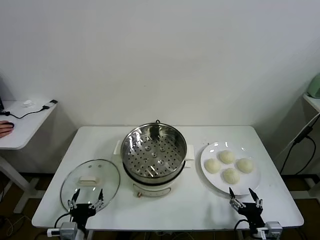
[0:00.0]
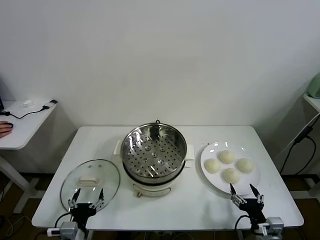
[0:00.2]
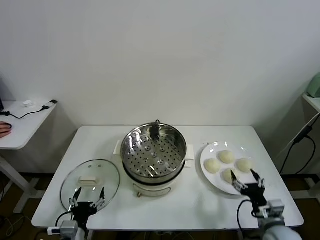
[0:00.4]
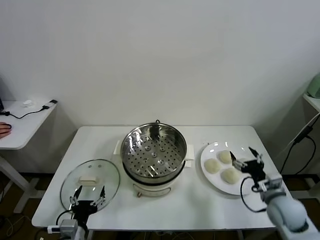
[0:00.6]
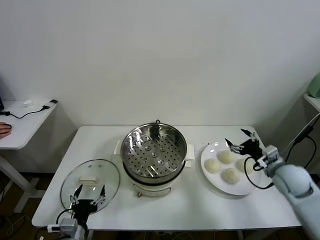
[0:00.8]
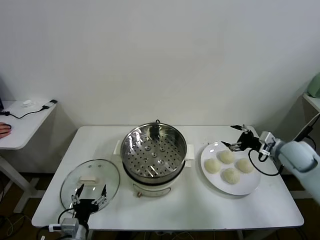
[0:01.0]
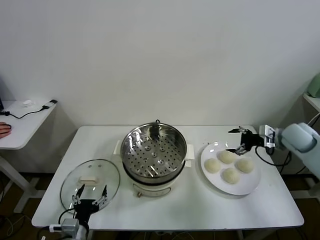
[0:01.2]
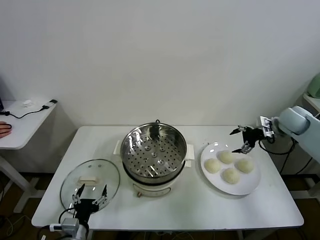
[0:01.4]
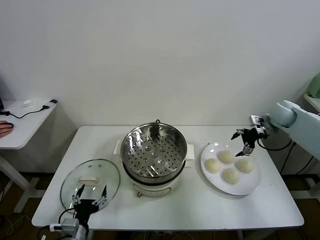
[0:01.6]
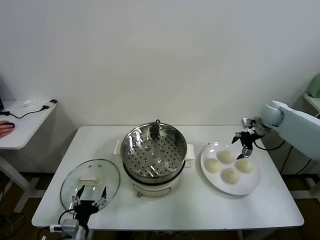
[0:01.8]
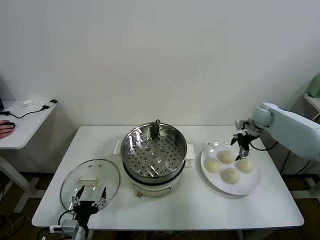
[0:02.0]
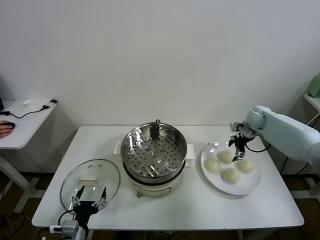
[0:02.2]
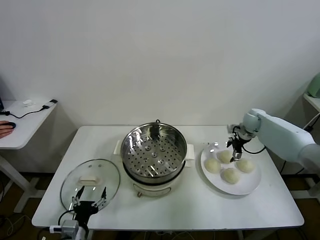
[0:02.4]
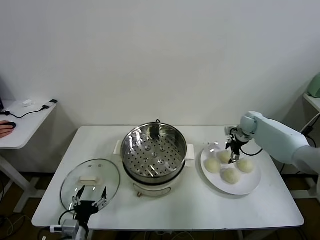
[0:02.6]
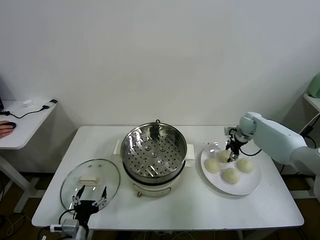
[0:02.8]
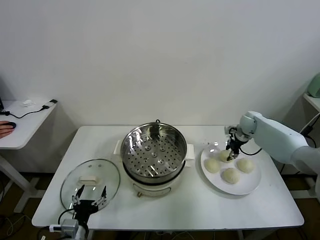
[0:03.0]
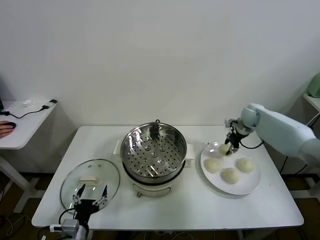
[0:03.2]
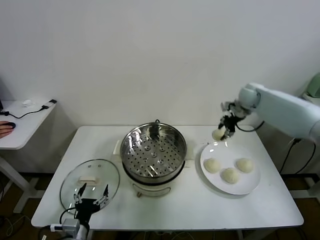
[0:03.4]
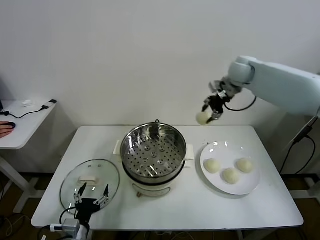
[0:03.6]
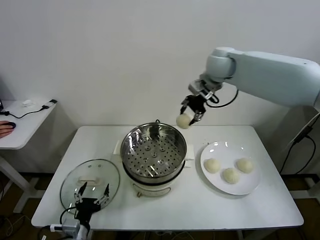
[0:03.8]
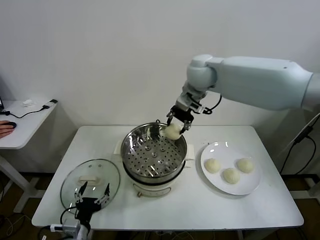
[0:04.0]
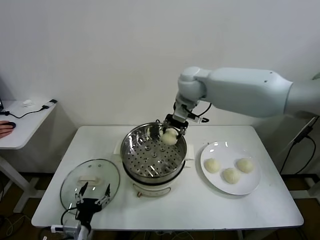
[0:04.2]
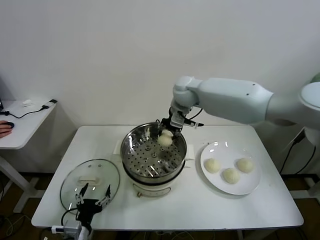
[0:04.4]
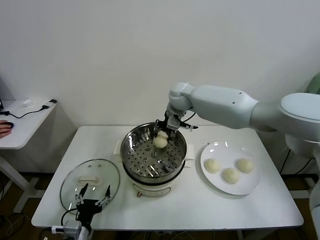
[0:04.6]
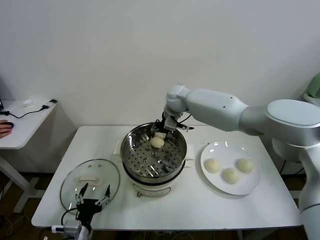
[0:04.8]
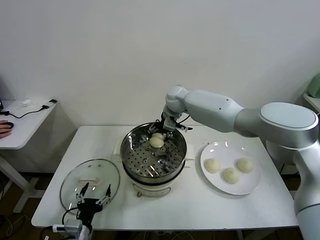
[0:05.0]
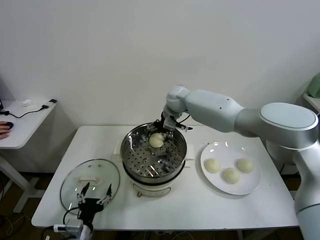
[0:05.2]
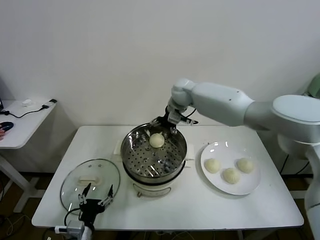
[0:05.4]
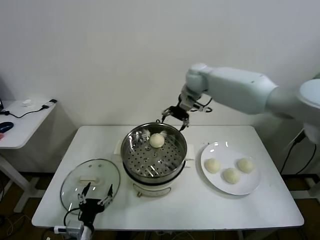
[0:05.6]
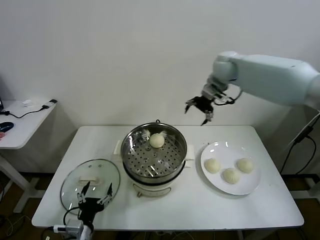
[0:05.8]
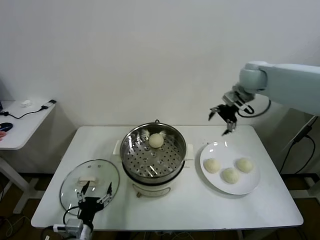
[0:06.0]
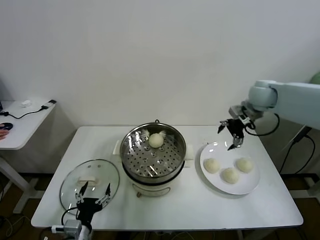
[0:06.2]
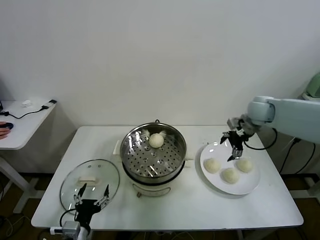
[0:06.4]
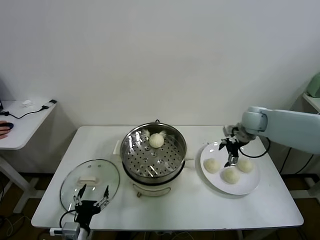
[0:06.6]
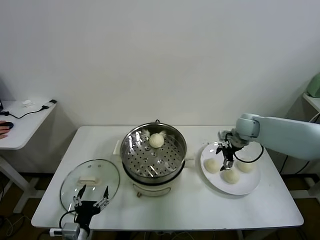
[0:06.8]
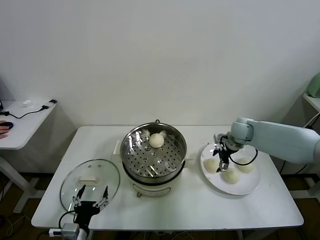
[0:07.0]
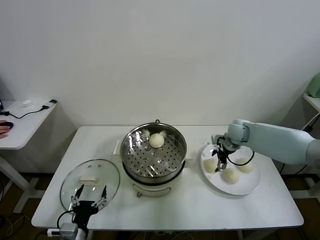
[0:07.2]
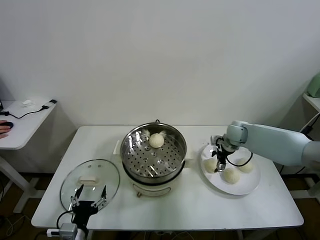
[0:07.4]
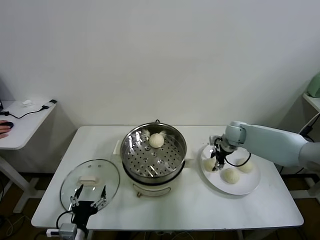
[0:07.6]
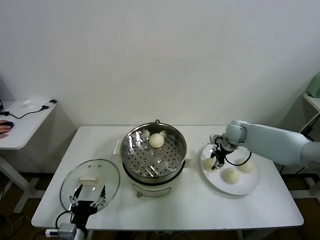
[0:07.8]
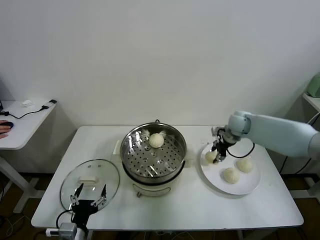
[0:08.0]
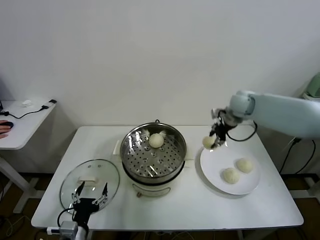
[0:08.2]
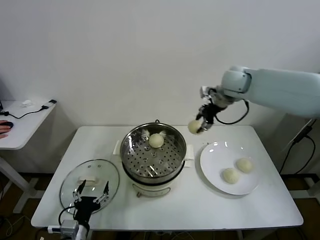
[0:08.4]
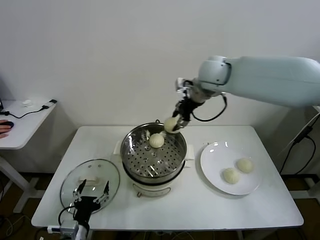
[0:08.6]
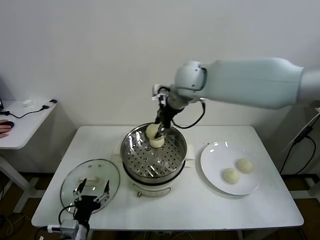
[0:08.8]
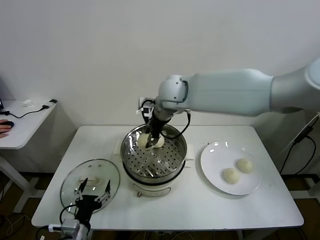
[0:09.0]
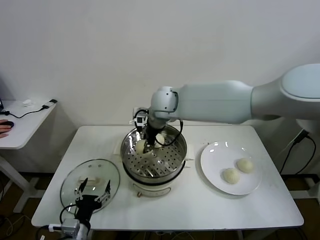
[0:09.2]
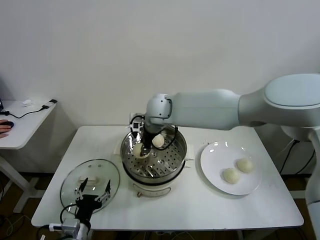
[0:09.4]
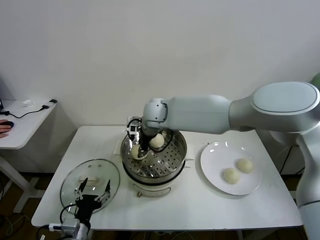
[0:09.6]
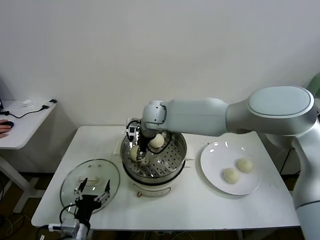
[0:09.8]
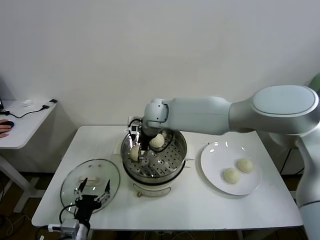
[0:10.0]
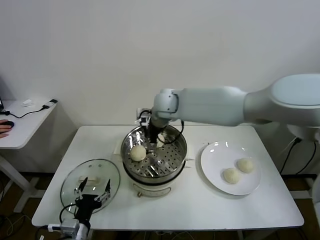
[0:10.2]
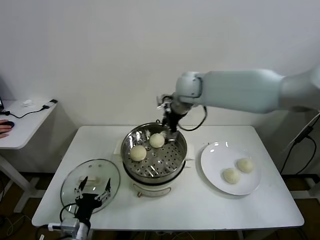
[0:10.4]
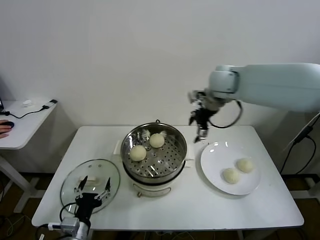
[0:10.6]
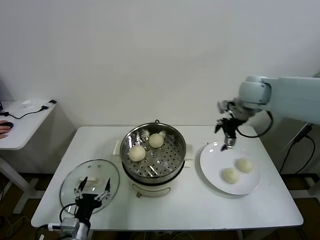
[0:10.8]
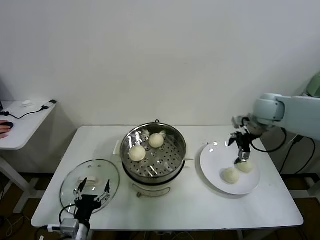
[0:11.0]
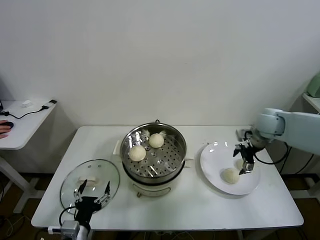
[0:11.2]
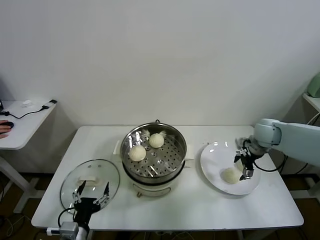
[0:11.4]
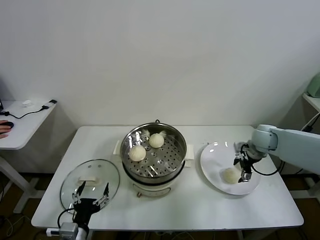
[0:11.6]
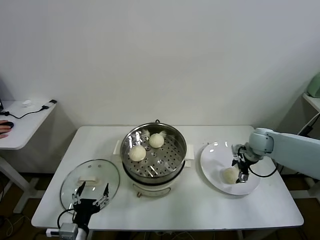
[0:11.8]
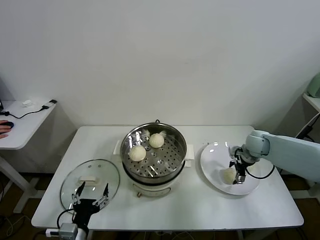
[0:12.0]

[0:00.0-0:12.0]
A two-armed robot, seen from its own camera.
Task of the whole recording: take steamed baozi put them in steamer.
Step, 0:00.0 to 0:02.8: Grasp the baozi in the plate with right gripper.
Step, 0:03.0 to 0:05.0: Place the baozi on the steamer with right gripper.
Step, 0:05.2 to 0:07.6: Grasp the baozi in the plate with right gripper.
Step, 0:07.8 to 0:09.8: Place the baozi on the steamer with right gripper.
0:01.6 to 0:03.0: The right gripper heads downward and to the left, covering some 10 cm, and closes its fingers.
0:03.0 to 0:04.4: The right gripper is displaced to the left and upward by some 35 cm.
0:04.4 to 0:06.0: The right gripper heads to the right, covering some 25 cm, and opens up.
0:06.0 to 0:07.6: The right gripper travels downward by about 20 cm, and closes up.
0:07.6 to 0:09.0: The right gripper is displaced to the left and upward by some 35 cm.
0:09.0 to 0:10.4: The right gripper shifts about 10 cm to the right, and opens.
0:10.4 to 0:12.0: The right gripper shifts approximately 35 cm to the right and downward.

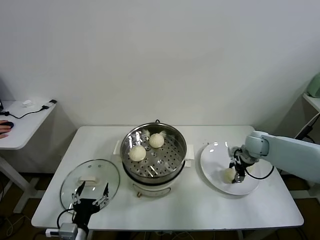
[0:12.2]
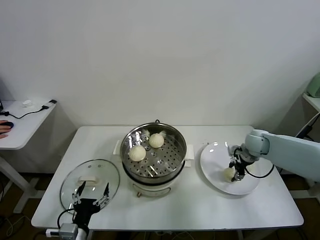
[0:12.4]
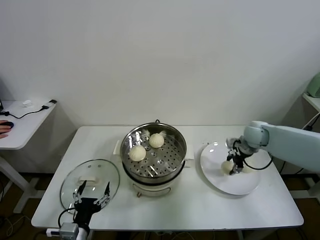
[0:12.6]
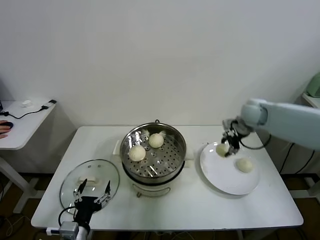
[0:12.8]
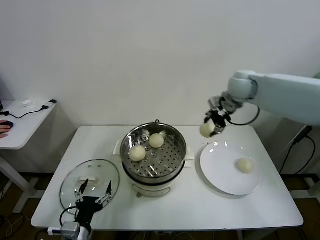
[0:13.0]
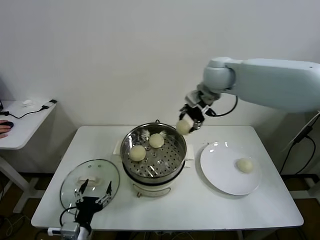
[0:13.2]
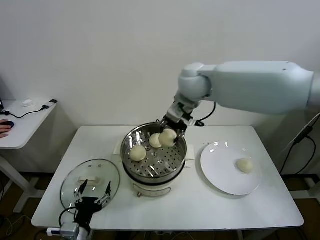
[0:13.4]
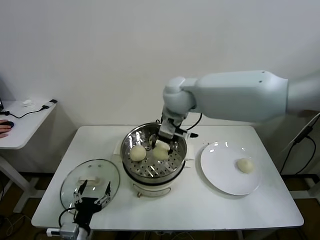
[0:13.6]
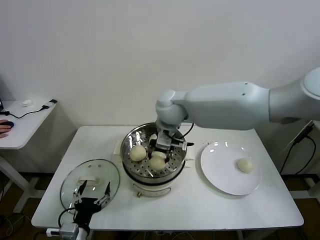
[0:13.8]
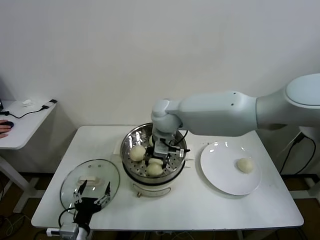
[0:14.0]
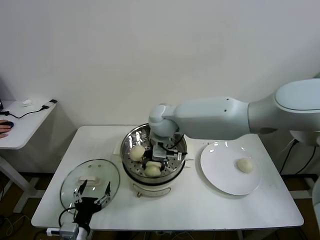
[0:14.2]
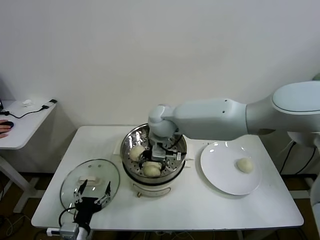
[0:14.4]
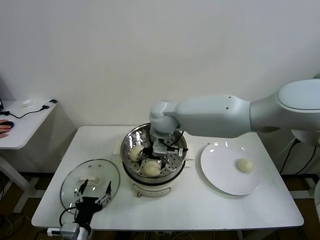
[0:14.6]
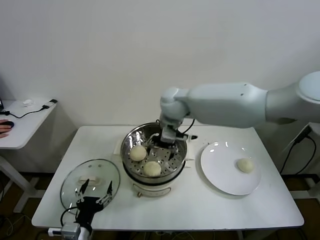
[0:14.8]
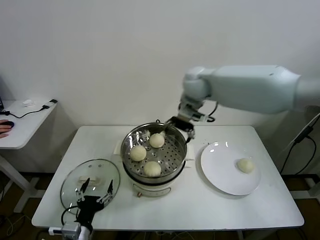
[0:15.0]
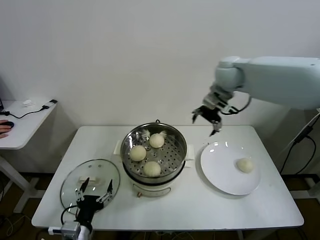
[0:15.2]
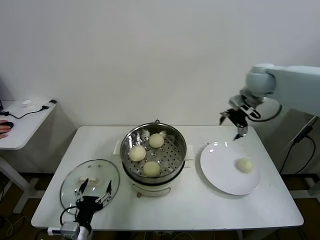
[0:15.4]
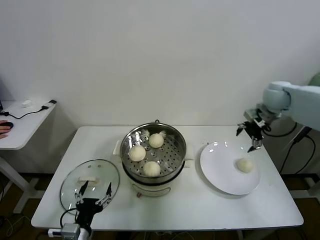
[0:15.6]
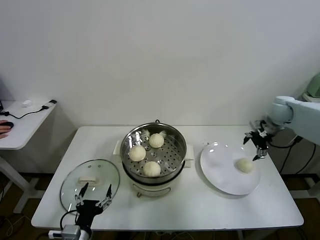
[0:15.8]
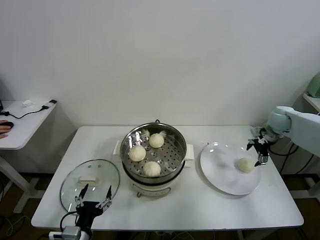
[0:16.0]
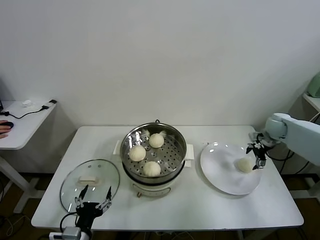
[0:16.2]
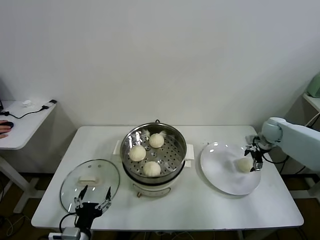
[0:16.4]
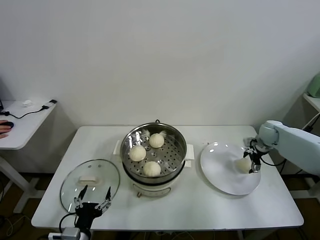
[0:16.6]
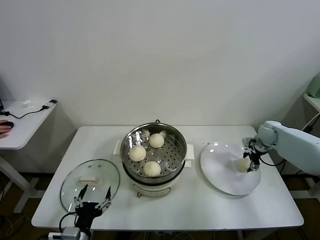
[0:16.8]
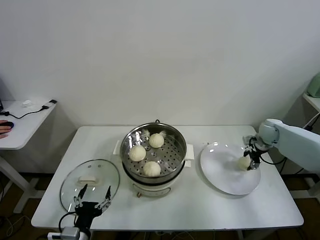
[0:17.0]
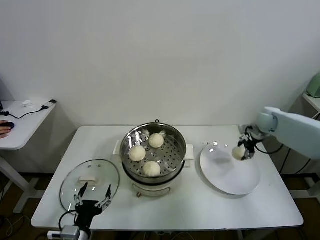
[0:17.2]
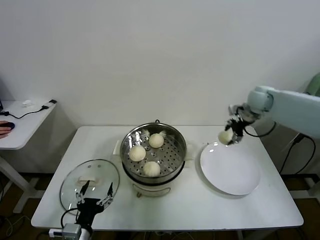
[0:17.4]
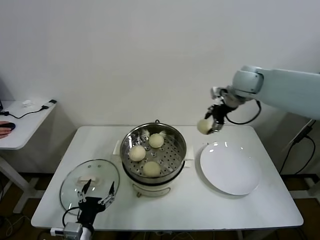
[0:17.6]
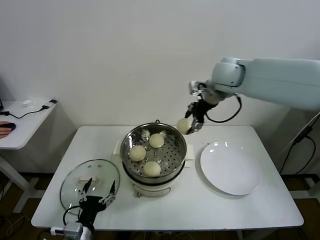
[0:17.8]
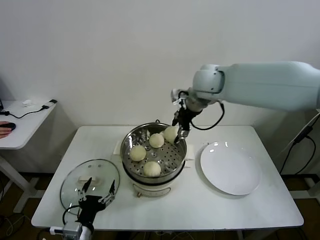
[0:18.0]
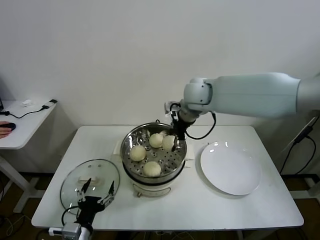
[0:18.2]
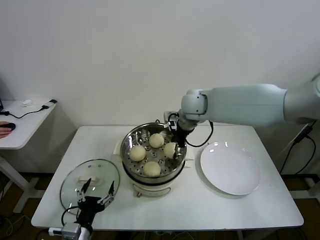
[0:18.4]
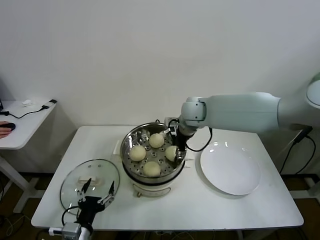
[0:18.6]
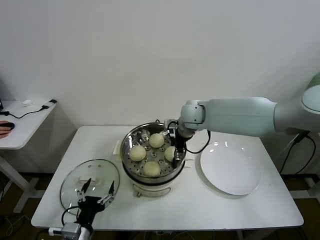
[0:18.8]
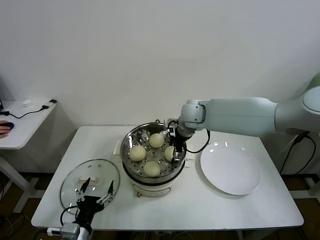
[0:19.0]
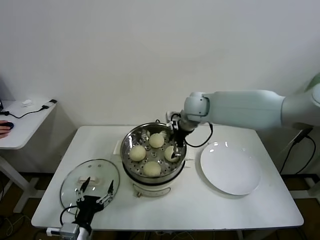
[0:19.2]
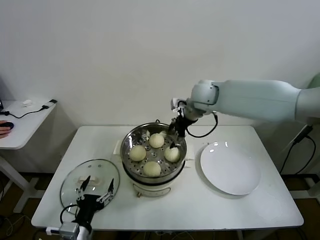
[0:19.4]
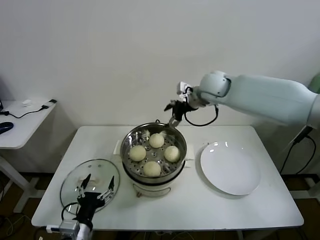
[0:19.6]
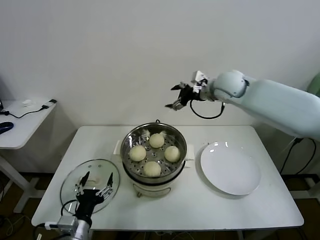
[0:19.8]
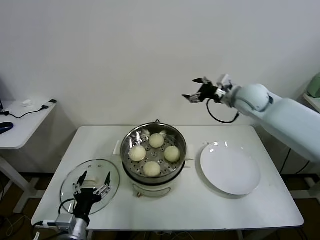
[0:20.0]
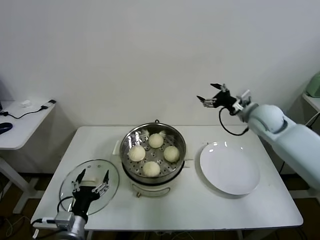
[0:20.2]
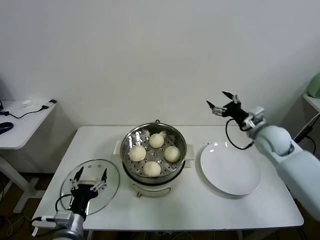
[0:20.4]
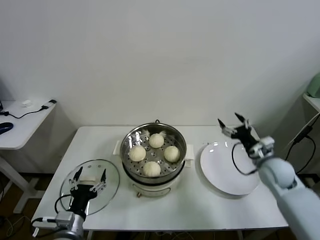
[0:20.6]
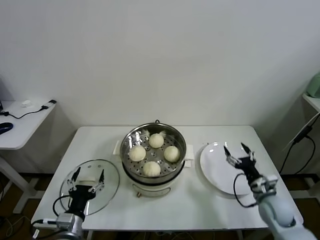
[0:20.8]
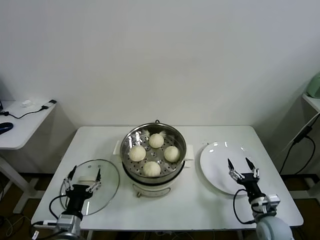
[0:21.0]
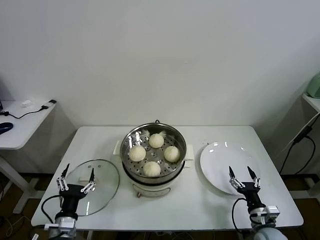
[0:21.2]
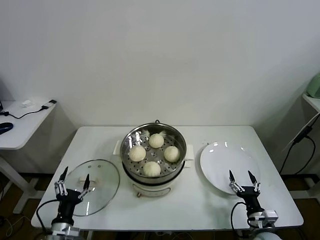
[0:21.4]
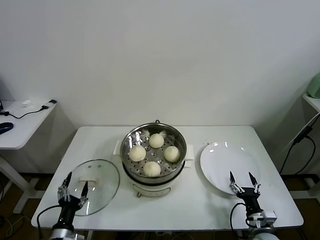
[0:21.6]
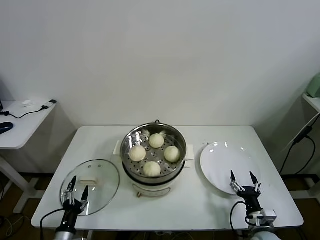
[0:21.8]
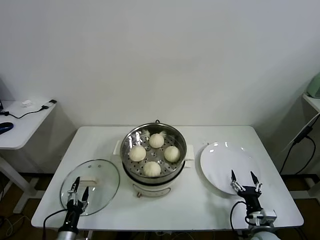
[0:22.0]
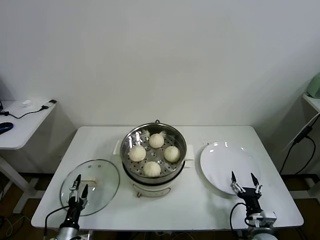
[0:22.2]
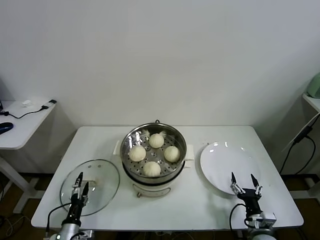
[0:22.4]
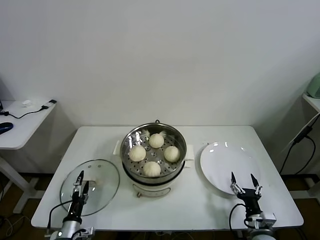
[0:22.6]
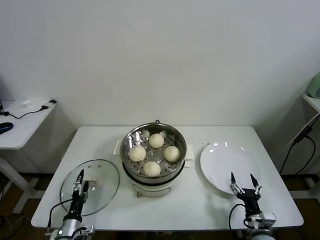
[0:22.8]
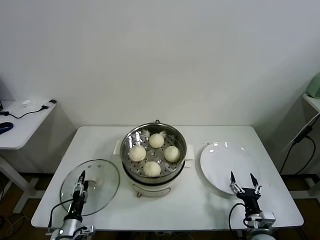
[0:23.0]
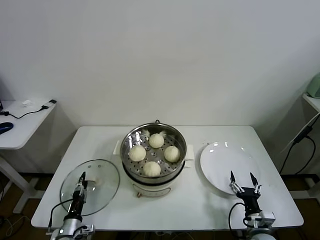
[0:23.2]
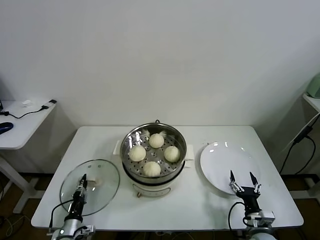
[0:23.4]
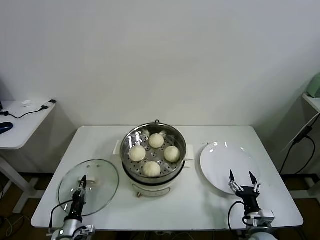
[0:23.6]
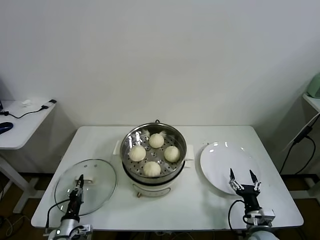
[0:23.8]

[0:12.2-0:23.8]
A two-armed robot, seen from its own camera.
Task of the whole recording: take steamed baozi put them in steamer.
Step, 0:12.4 to 0:14.4: Place the baozi on the steamer with right gripper.
Step, 0:14.6 to 0:16.6: Grasp the baozi in the plate with right gripper.
Step, 0:17.0 to 0:19.0: Place the baozi on the steamer with right gripper.
Step, 0:19.2 to 0:23.4: Grasp the pot lid with left gripper.
0:12.2 to 0:13.6: The right gripper heads to the left and upward, covering roughly 40 cm.
0:13.6 to 0:15.0: The right gripper travels to the right and forward by approximately 10 cm, and opens.
0:15.0 to 0:16.6: The right gripper travels to the right and downward by some 40 cm.
0:16.6 to 0:18.0: The right gripper heads to the left and upward, covering roughly 40 cm, and closes.
0:18.0 to 0:19.4: The right gripper heads downward, covering about 5 cm, and opens its fingers.
0:19.4 to 0:21.0: The left gripper changes place by roughly 5 cm, while the right gripper travels downward, backward and to the right by roughly 50 cm.
0:21.0 to 0:22.4: The right gripper heads backward, covering about 5 cm, while the left gripper travels downward and to the left by about 15 cm.
0:22.4 to 0:23.8: The left gripper closes its fingers.
